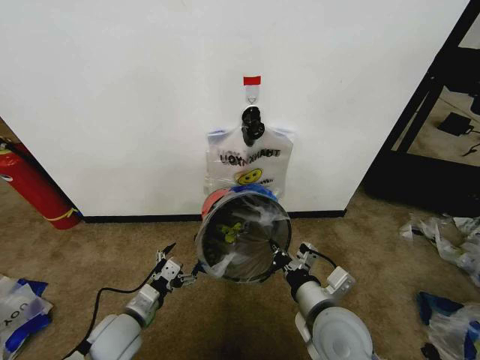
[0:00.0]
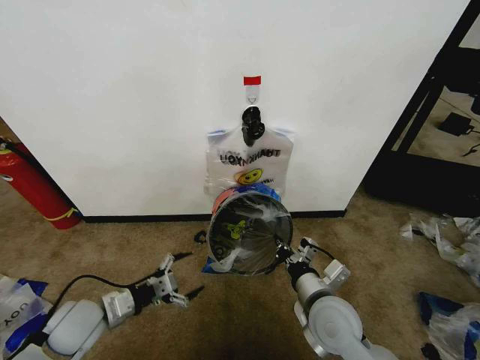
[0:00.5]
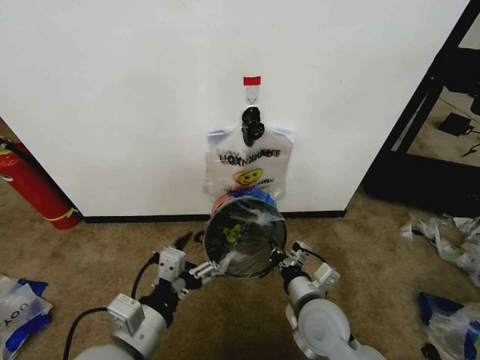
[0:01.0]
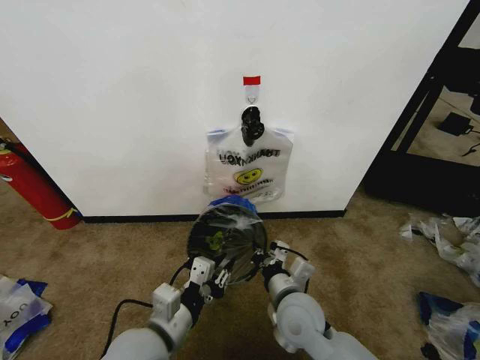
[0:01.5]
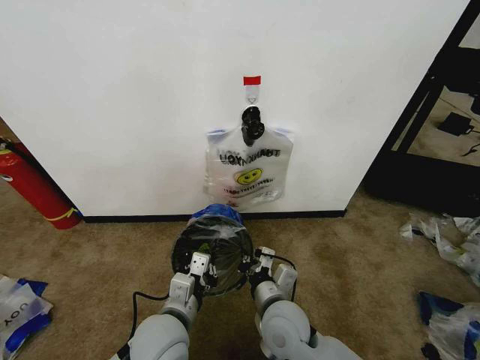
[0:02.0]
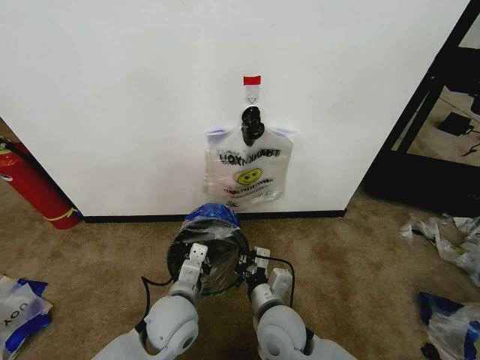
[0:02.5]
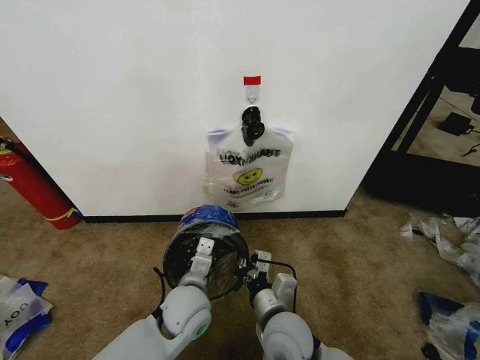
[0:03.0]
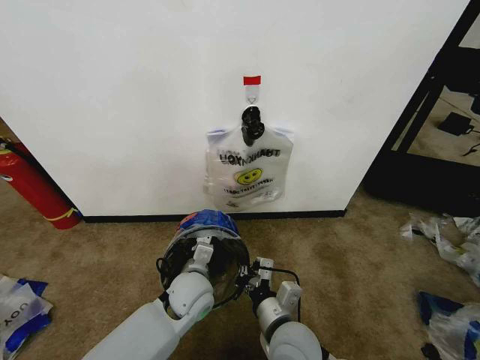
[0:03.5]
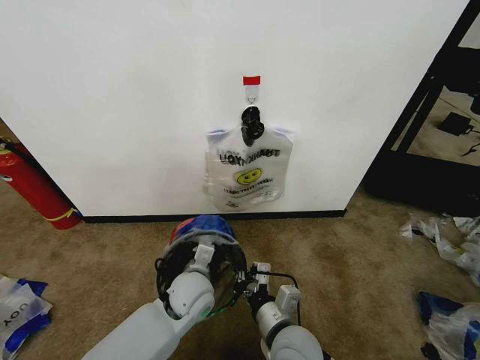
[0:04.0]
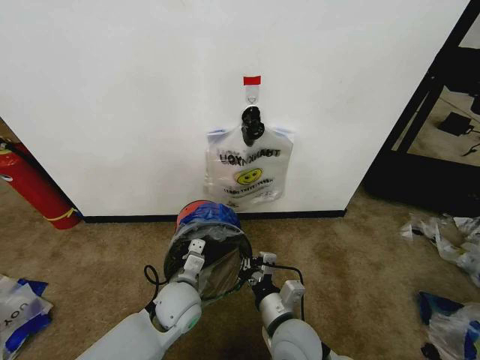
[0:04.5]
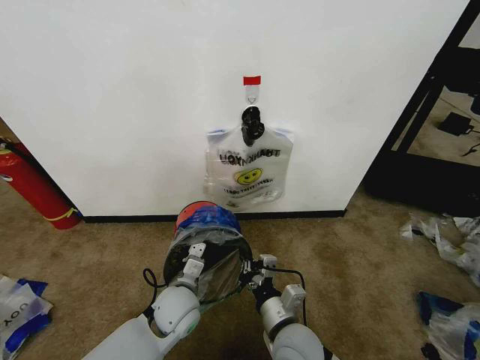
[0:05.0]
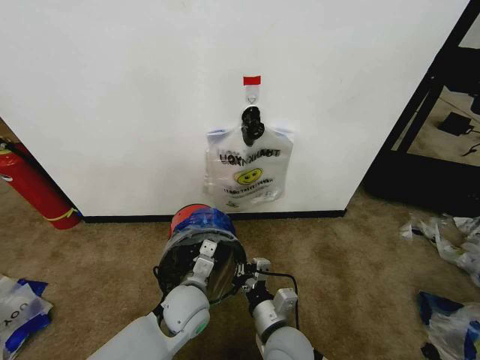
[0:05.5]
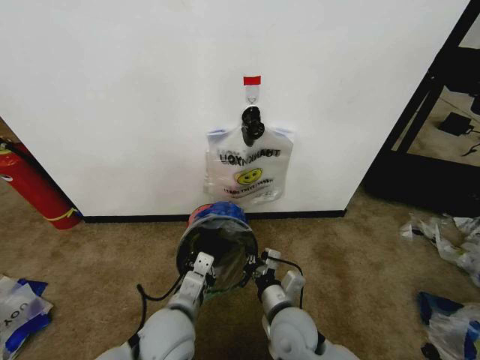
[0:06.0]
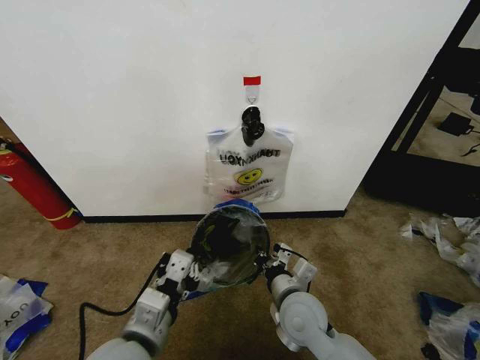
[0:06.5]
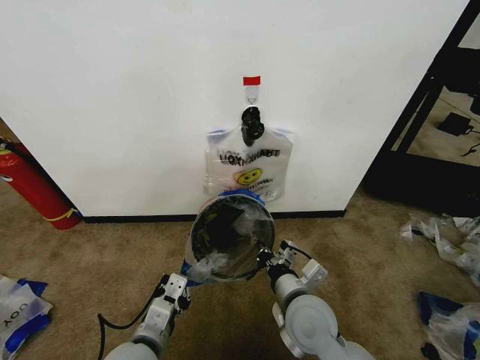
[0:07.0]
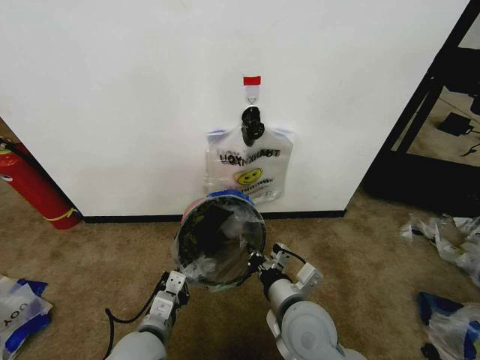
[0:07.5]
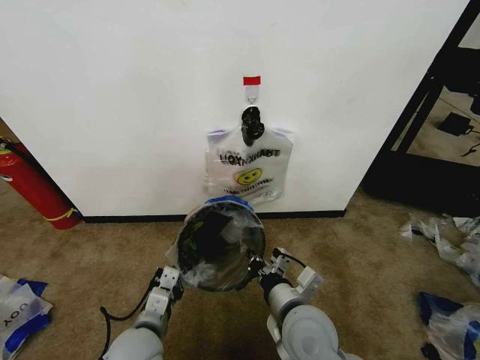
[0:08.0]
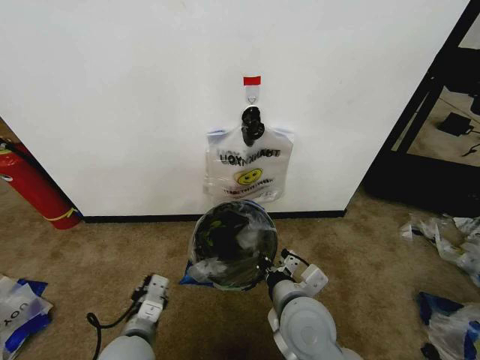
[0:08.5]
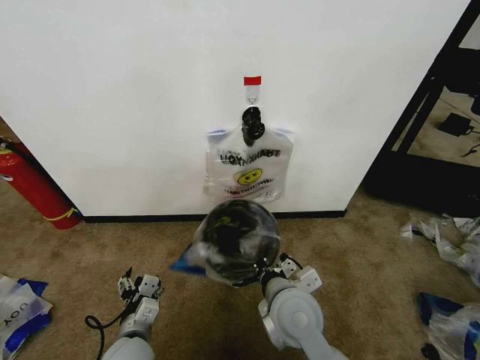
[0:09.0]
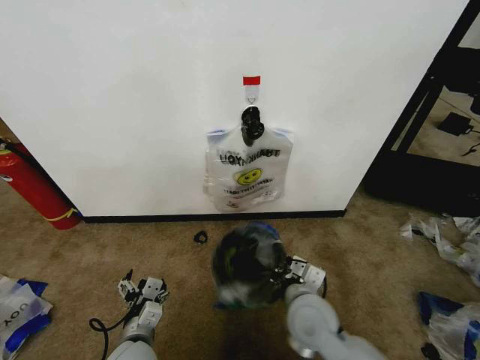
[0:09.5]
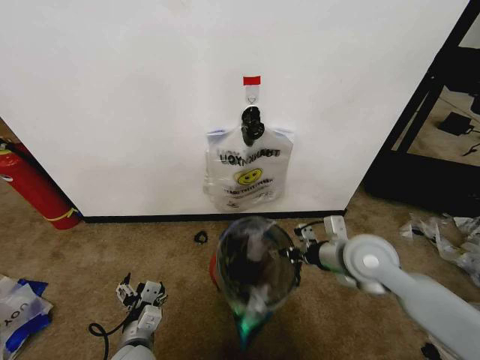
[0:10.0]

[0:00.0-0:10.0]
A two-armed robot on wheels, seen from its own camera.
Task of the whole recording: Pick up the garbage bag from the wall and place it over the trash bin.
0:00.0 to 0:02.0: The right gripper travels to the left by roughly 10 cm. The left gripper travels to the right and upward by some 15 cm, and closes up.
0:02.0 to 0:04.0: The left gripper heads forward, covering approximately 10 cm.
0:04.0 to 0:06.0: The left gripper shifts some 10 cm backward.
0:06.0 to 0:08.0: The right gripper heads upward, covering approximately 10 cm. Meanwhile the left gripper moves to the left, approximately 5 cm, and reaches some 10 cm upward, then returns.
0:08.0 to 0:10.0: The right gripper goes roughly 20 cm to the right, forward and upward, while the left gripper shifts roughly 5 cm downward, and opens.

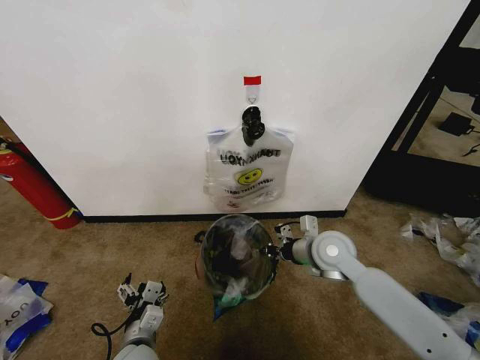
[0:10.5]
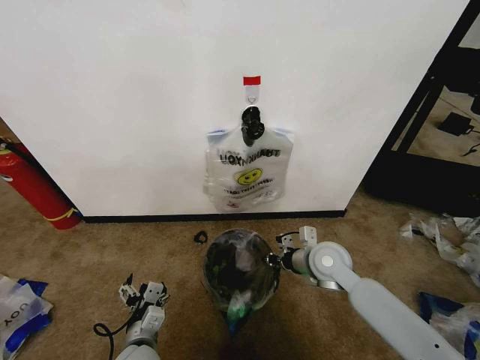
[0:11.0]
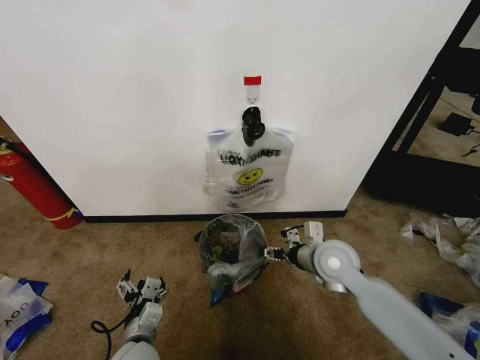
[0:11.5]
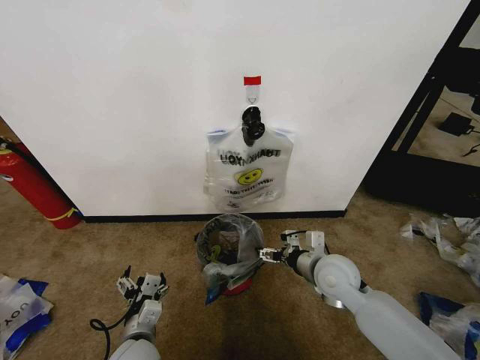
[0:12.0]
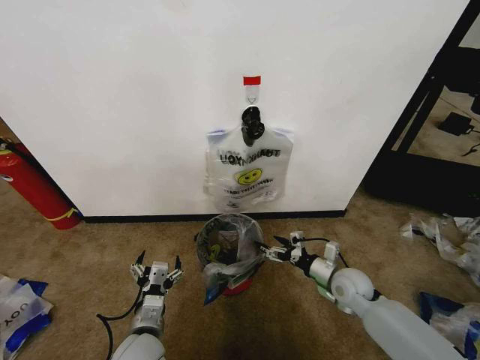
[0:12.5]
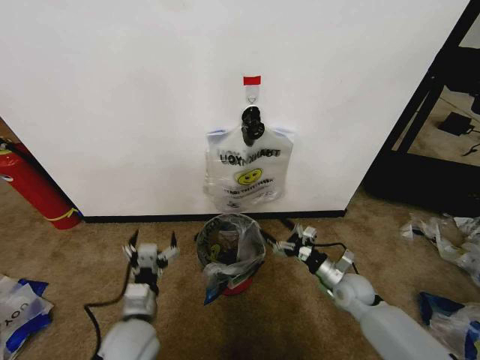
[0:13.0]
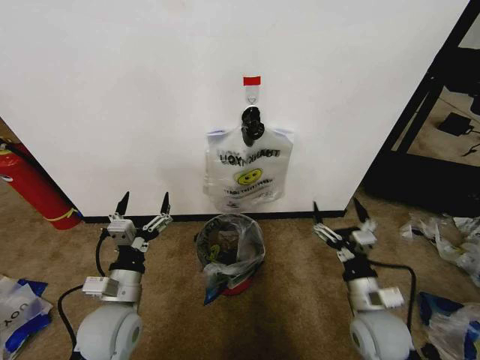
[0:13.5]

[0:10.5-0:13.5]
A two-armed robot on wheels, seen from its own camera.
Task of the whole recording: Pick up the garbage bag from the wall and place it over the trash bin.
0:10.5 to 0:12.0: The right gripper shifts by some 5 cm, and opens.
0:12.0 to 0:13.5: The right gripper moves backward and to the right, about 10 cm, and reaches roughly 15 cm downward, then returns; the left gripper shifts about 10 cm upward.

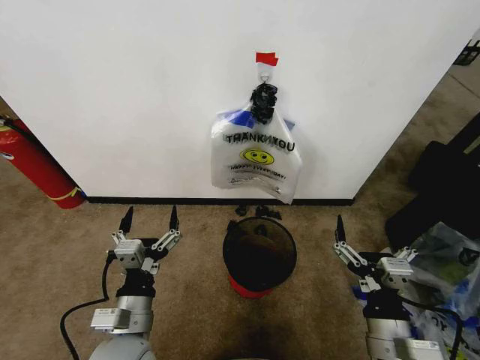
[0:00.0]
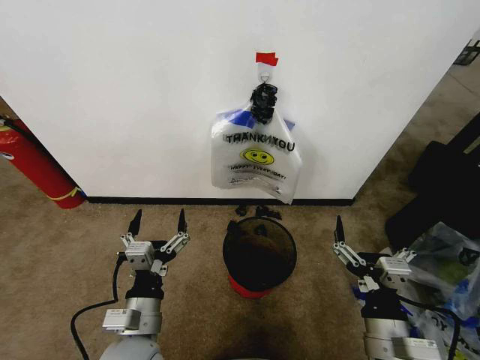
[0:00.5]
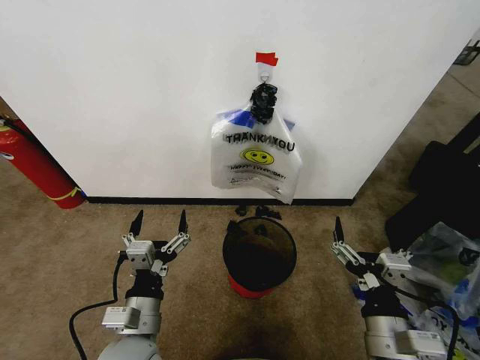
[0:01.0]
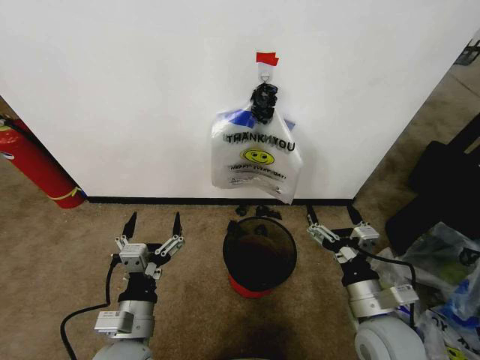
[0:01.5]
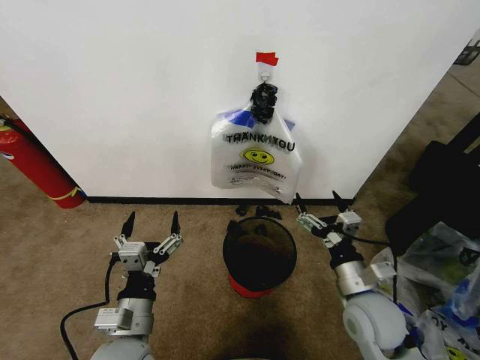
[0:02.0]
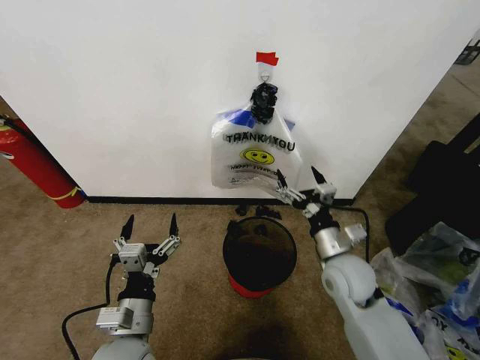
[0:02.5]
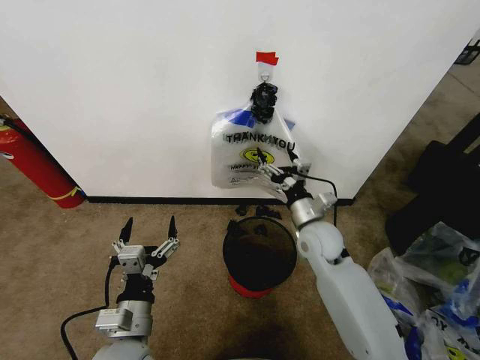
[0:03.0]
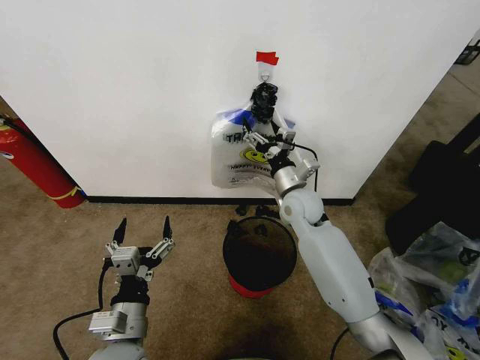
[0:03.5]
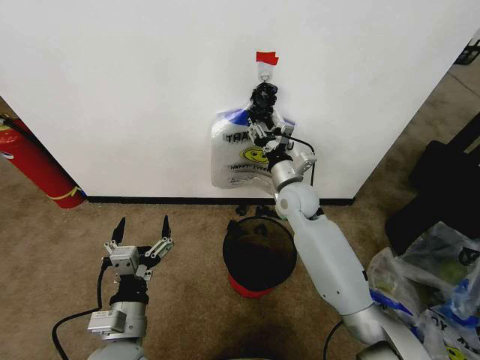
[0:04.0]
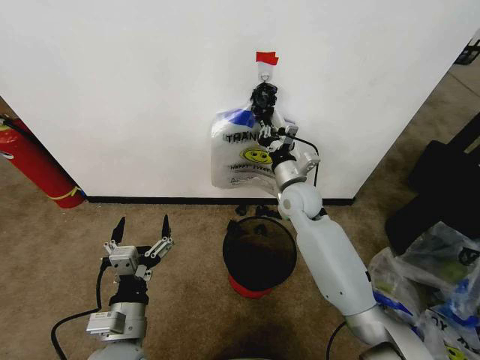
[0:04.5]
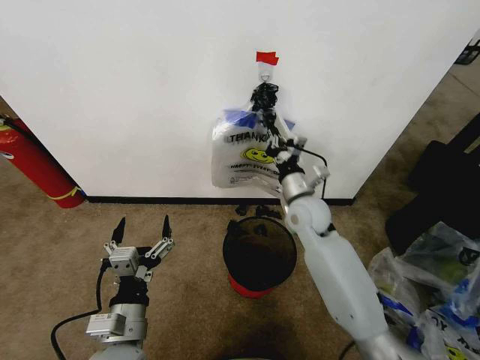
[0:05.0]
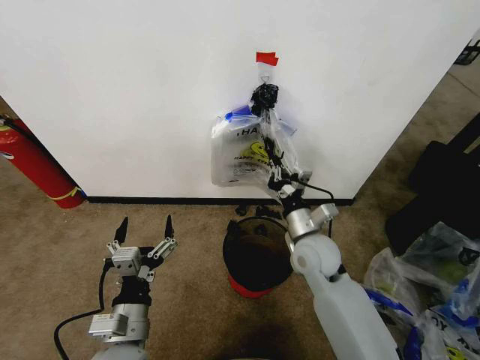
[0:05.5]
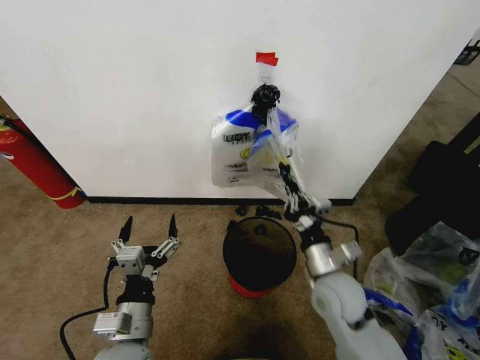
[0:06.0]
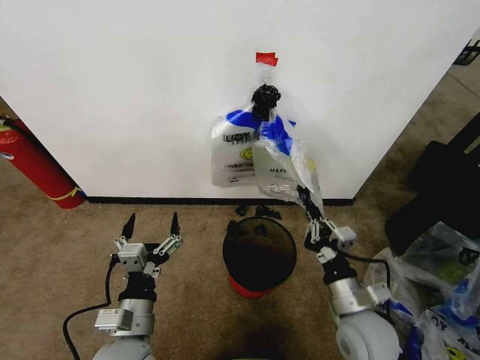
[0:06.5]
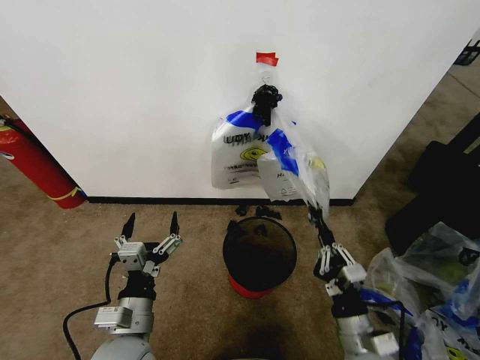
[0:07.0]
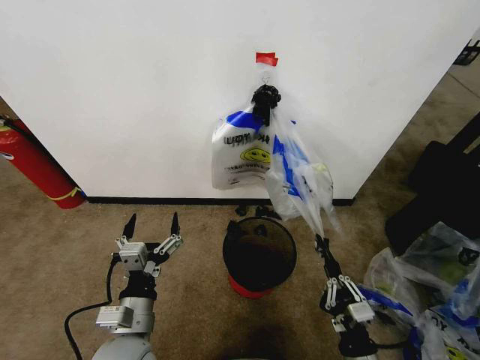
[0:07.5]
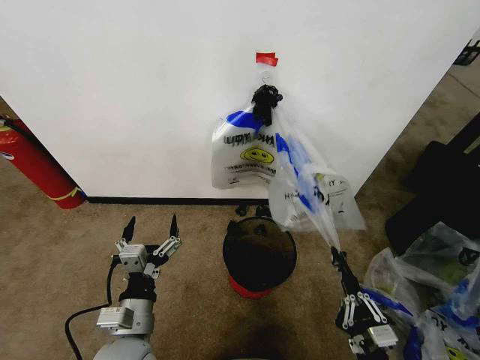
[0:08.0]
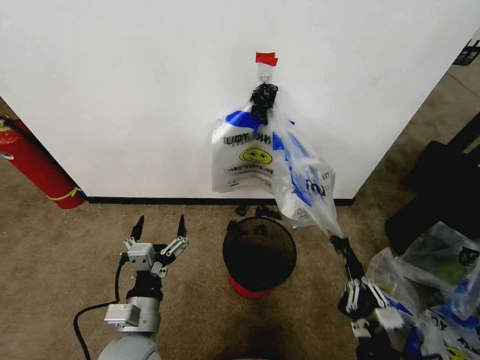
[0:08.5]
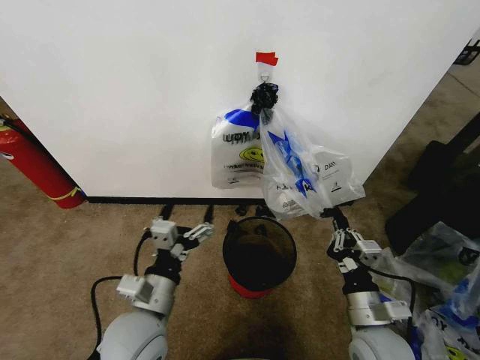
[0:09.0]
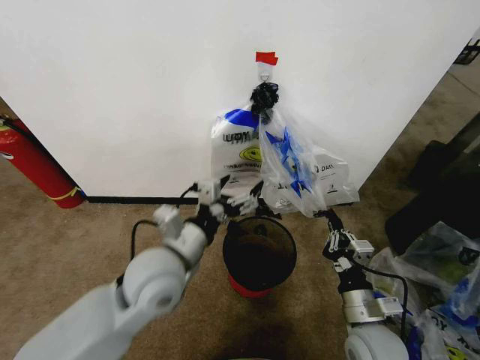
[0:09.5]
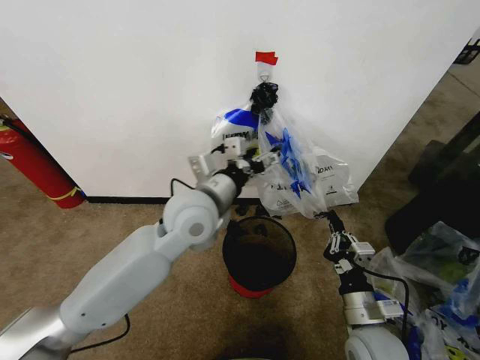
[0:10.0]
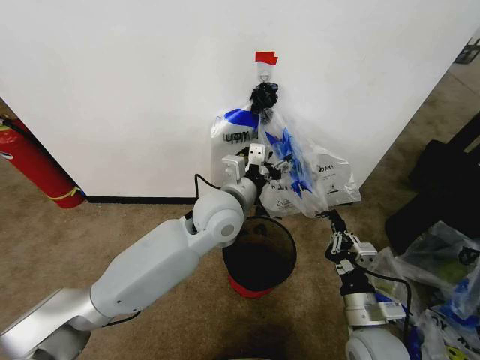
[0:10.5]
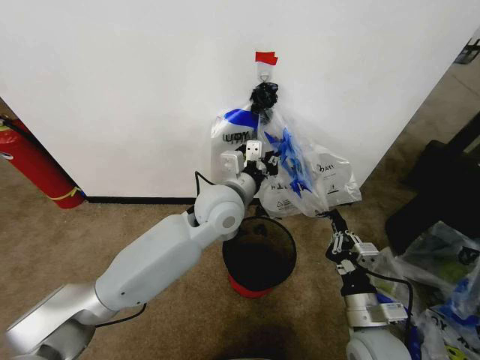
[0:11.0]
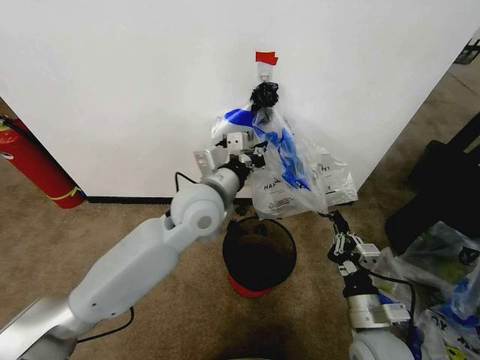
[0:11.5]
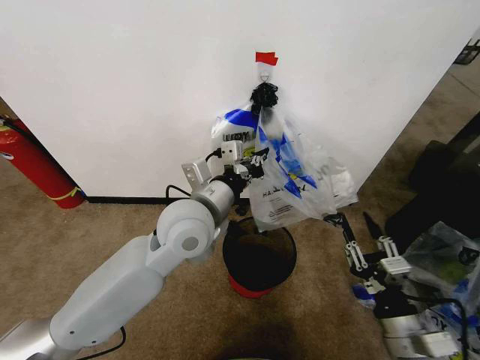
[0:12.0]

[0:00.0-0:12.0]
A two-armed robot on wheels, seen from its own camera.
Task of the whole recording: Pick up the garbage bag from the wall and place it over the trash bin.
0:02.0 to 0:04.0: The right gripper travels forward and to the left by approximately 25 cm, and closes.
0:04.0 to 0:06.0: The right gripper heads backward, covering approximately 20 cm, and closes.
0:06.0 to 0:08.0: The right gripper is displaced backward and downward by roughly 25 cm.
0:08.0 to 0:10.0: The left gripper is displaced forward, upward and to the right by about 25 cm. Meanwhile the right gripper goes roughly 15 cm forward and upward.
0:10.0 to 0:12.0: The left gripper closes its fingers. Meanwhile the right gripper travels backward by roughly 5 cm, and opens its fingers.
